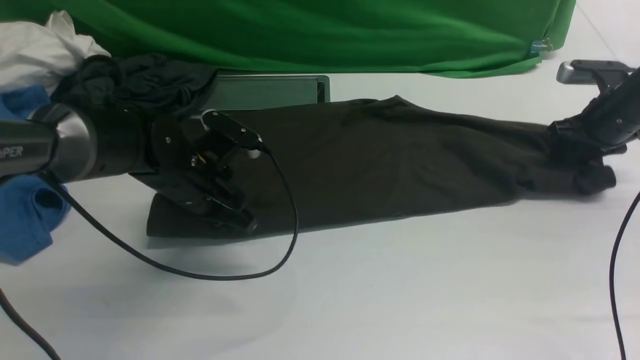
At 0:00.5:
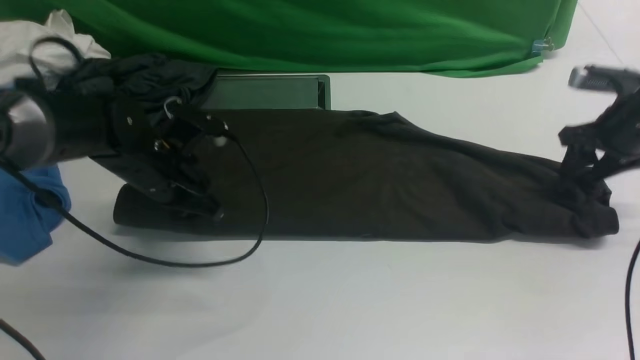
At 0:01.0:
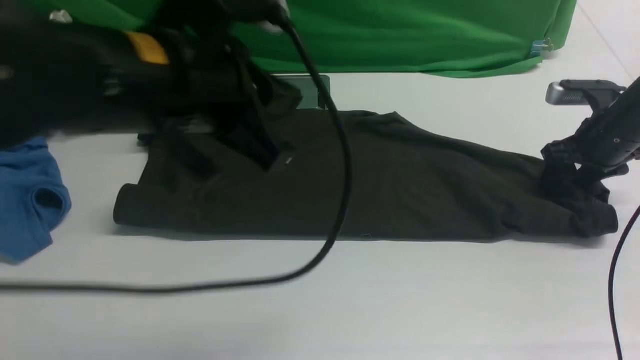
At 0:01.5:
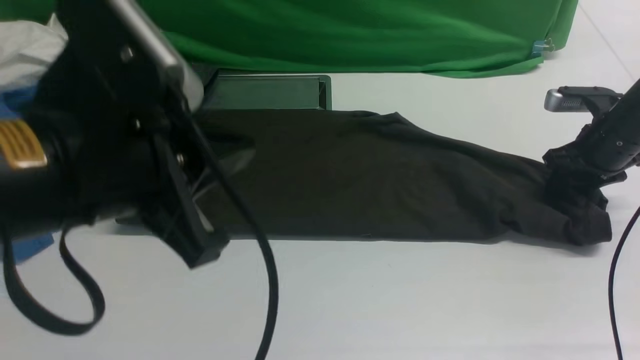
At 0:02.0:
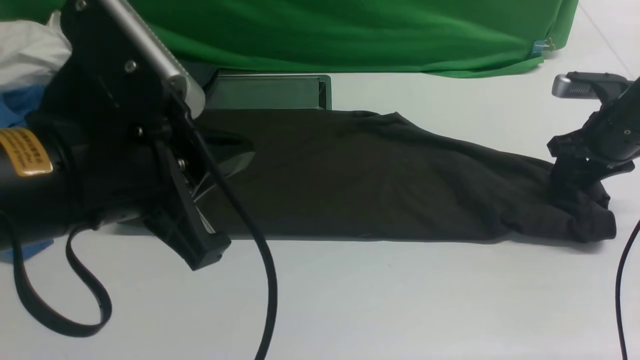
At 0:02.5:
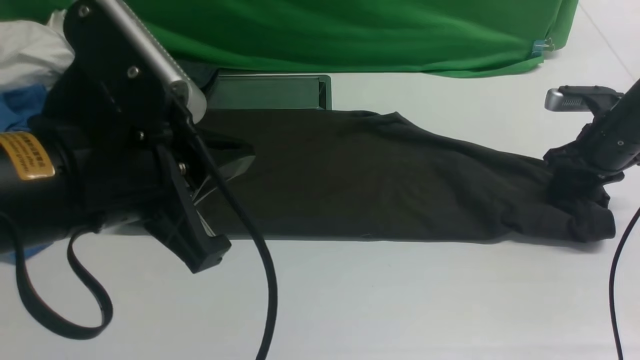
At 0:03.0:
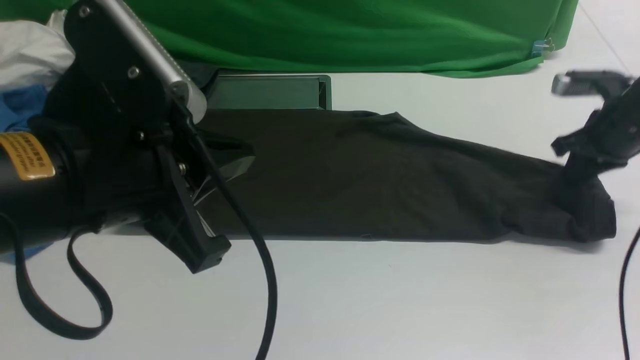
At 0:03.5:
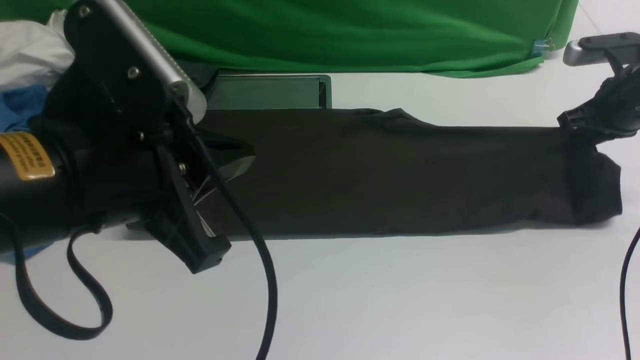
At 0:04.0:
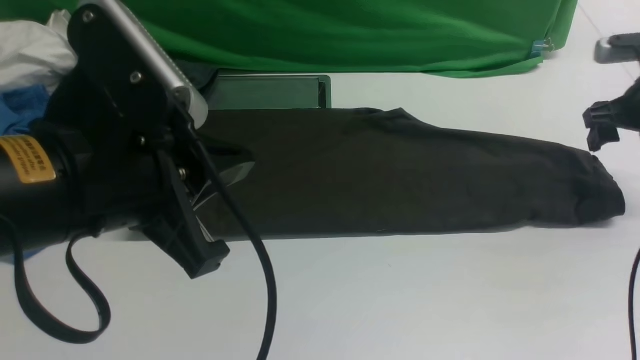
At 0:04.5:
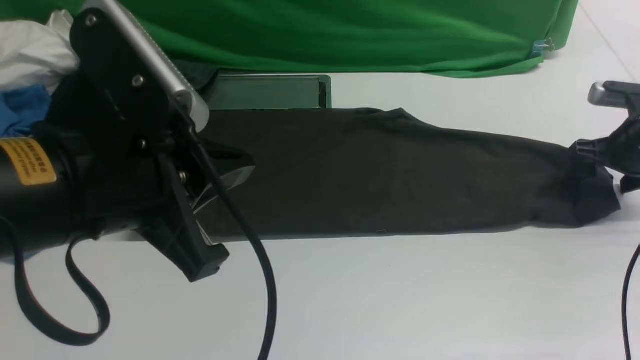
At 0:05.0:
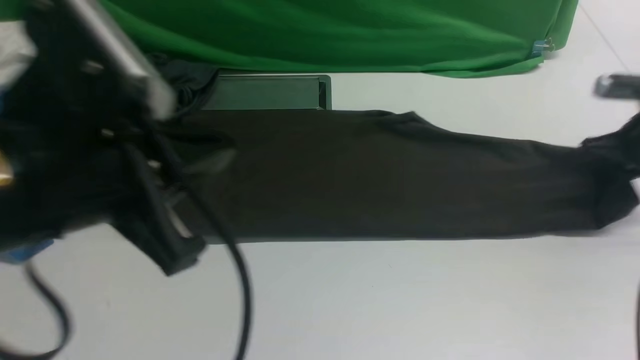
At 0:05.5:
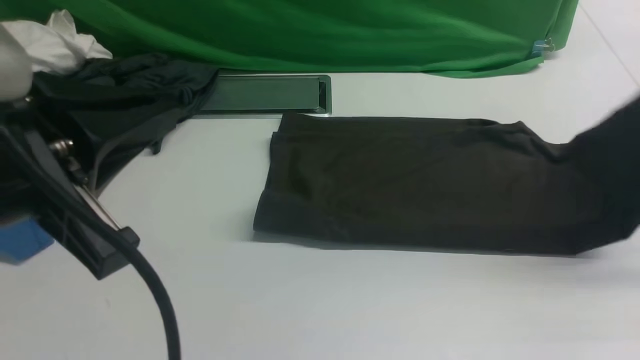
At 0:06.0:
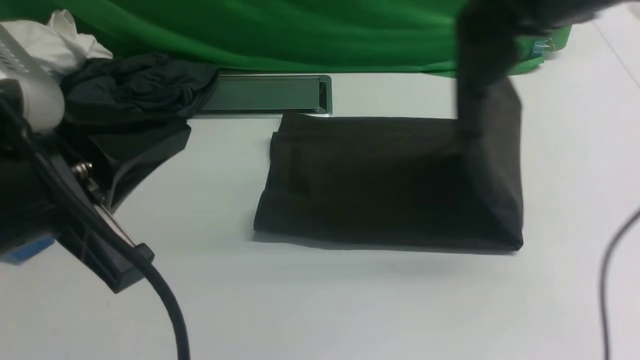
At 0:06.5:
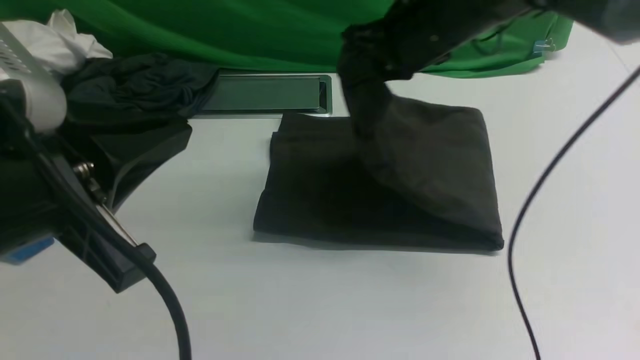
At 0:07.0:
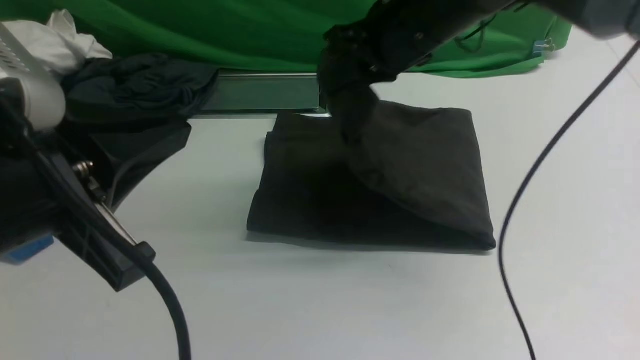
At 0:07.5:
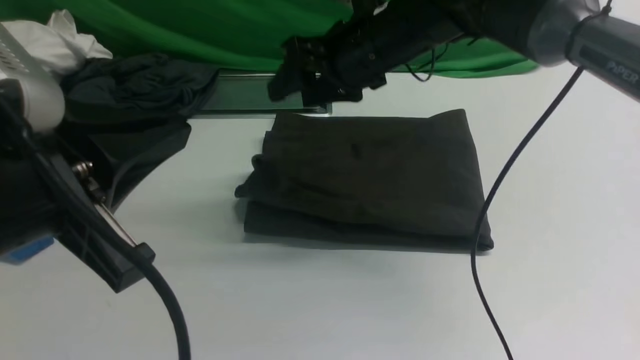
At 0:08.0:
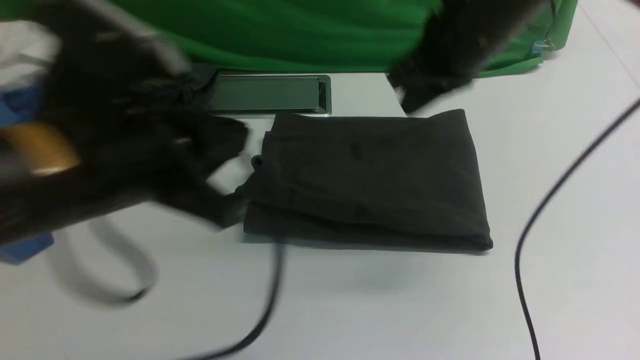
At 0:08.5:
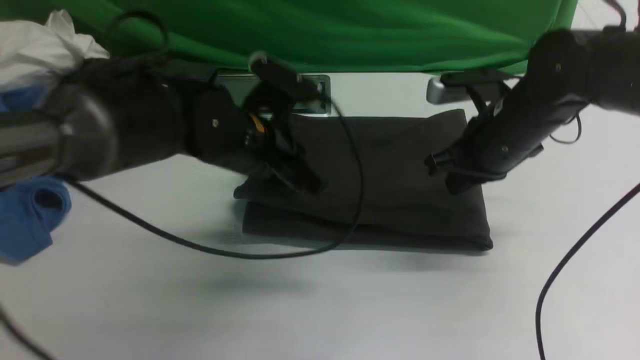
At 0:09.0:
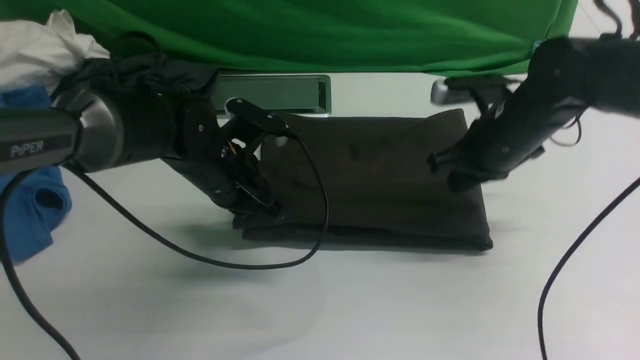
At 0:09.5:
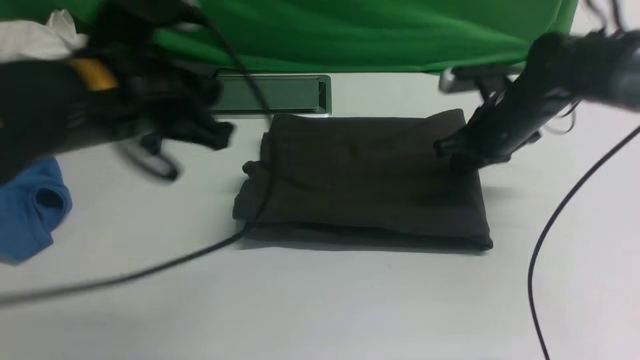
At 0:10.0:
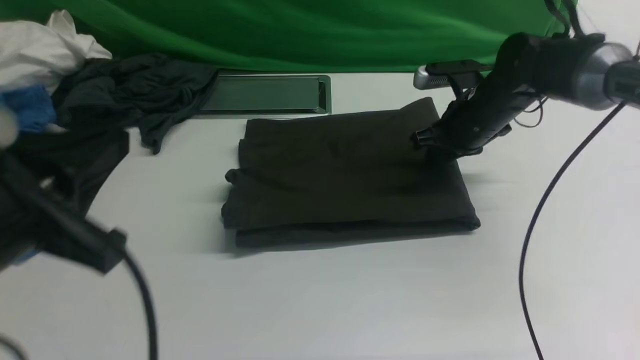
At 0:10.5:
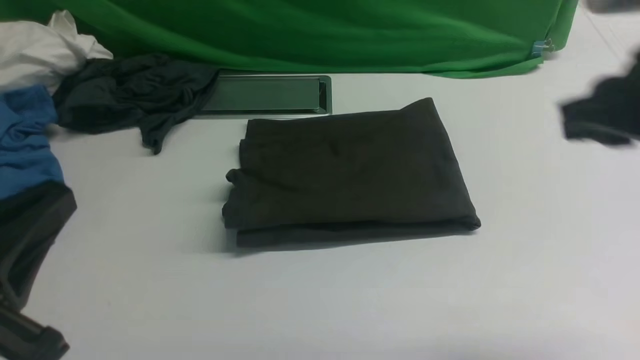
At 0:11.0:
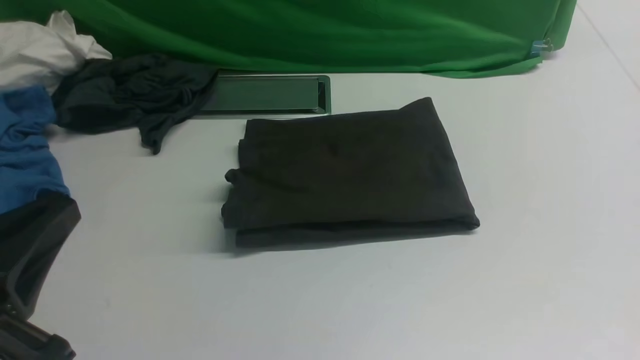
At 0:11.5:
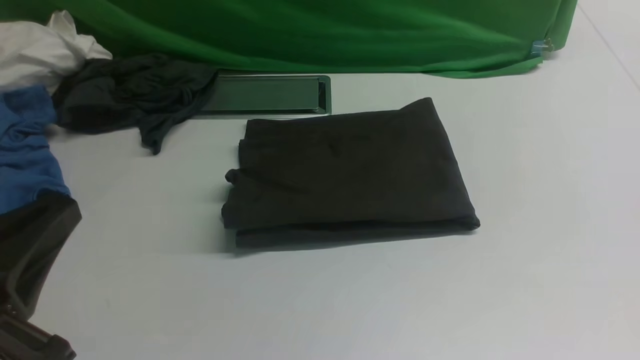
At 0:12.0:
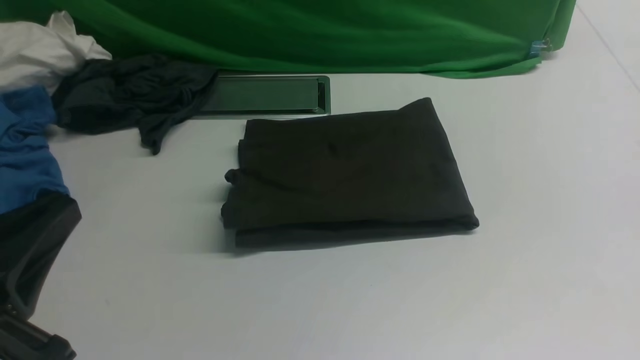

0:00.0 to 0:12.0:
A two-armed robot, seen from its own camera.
Step, 0:00.0 to 0:05.0: use the right arm to clamp the right edge of the fabric.
Step, 0:05.5 to 0:07.5: use the right arm to drag the right edge of the fabric to the left and folds it over the left edge.
0:00.0 to 0:02.0: The left gripper goes some 30 cm upward and backward.
0:02.0 to 0:04.0: The right gripper opens up.
0:04.0 to 0:06.0: The right gripper goes some 25 cm to the left and upward, and closes its fingers; the left gripper changes place by some 5 cm.
0:06.0 to 0:08.0: The right gripper heads to the left, covering some 5 cm, and opens, then closes once more, while the left gripper is displaced forward by about 10 cm.
0:08.0 to 0:10.0: The right gripper moves downward and to the right, roughly 10 cm, while the left gripper goes approximately 10 cm to the left, and travels forward and back again, roughly 15 cm each way.
0:10.0 to 0:12.0: The right gripper is displaced backward by roughly 35 cm. Meanwhile the left gripper moves backward, some 5 cm.

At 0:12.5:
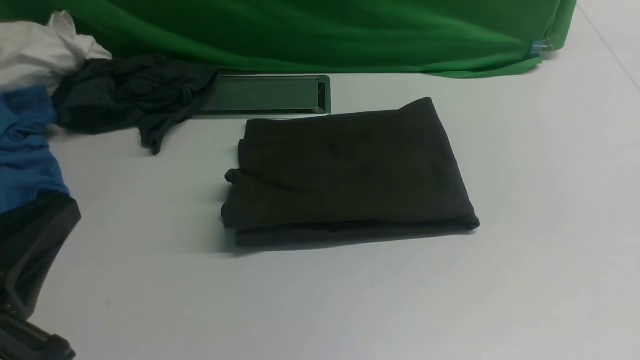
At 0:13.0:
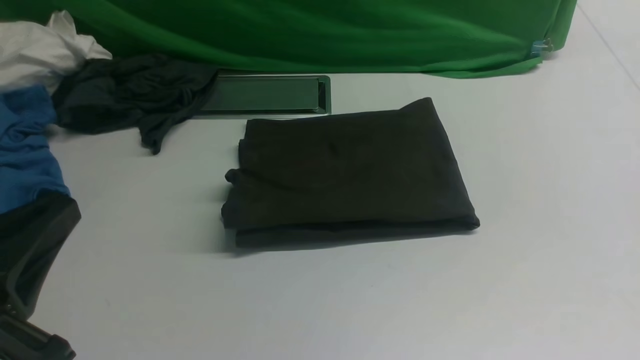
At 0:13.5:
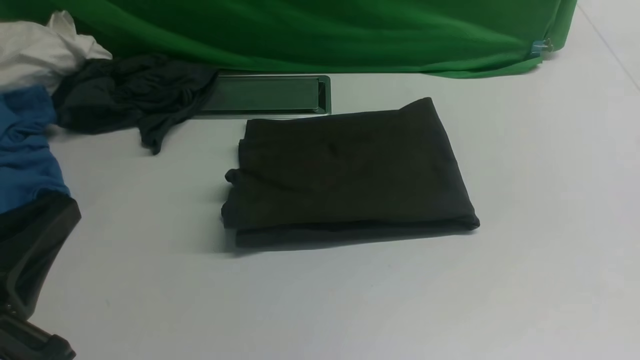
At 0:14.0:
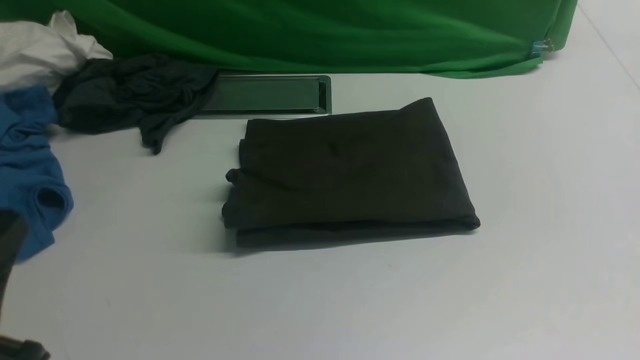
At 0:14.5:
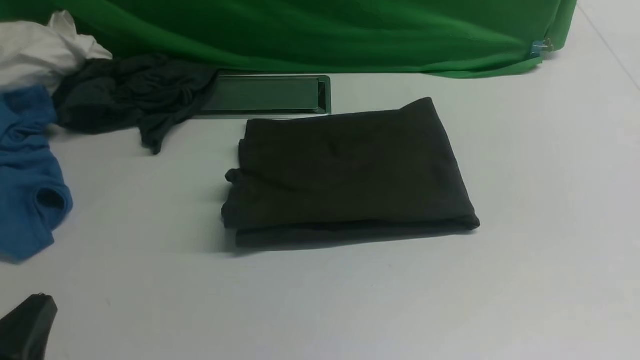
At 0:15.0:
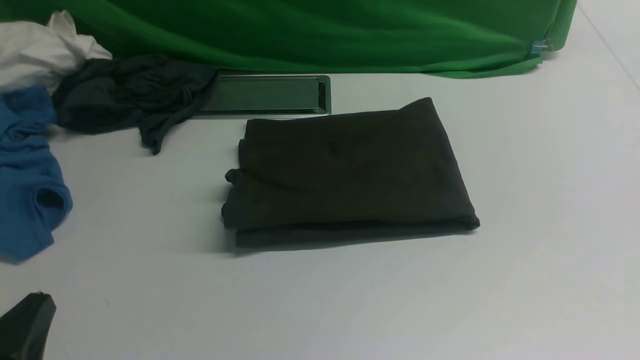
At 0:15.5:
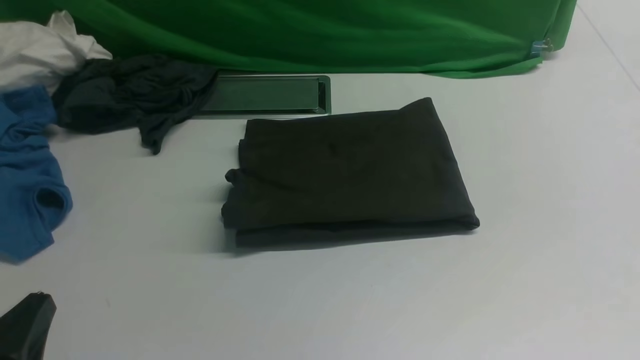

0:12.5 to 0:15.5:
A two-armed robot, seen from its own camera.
0:12.5 to 0:14.0: The grippers make only small movements.
0:14.0 to 0:15.5: The left gripper moves downward, some 5 cm.
